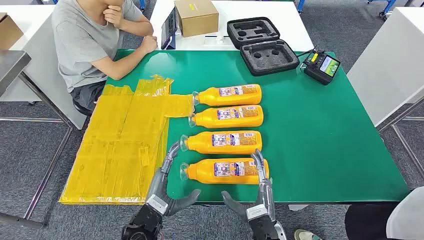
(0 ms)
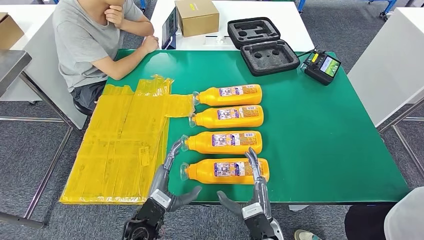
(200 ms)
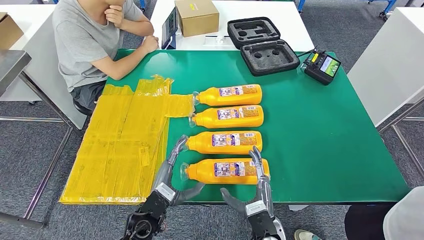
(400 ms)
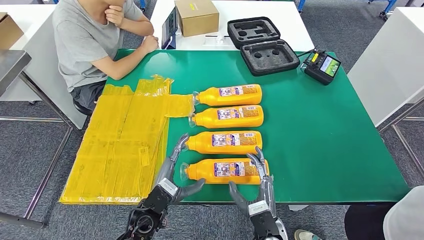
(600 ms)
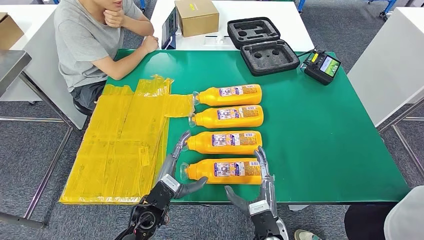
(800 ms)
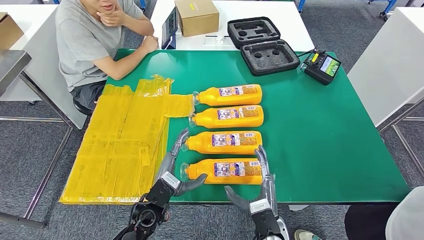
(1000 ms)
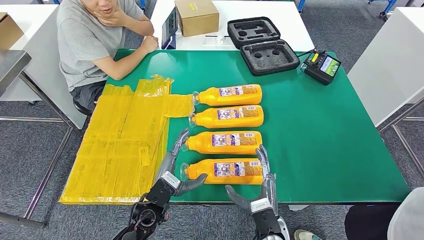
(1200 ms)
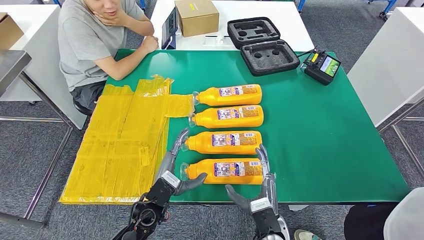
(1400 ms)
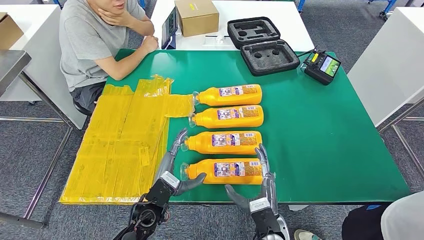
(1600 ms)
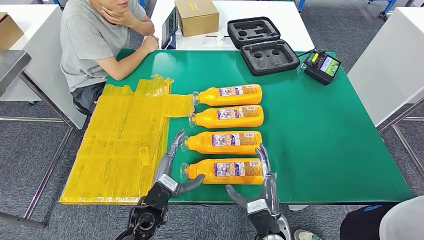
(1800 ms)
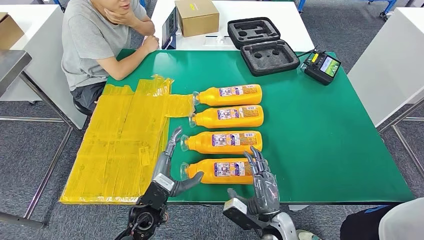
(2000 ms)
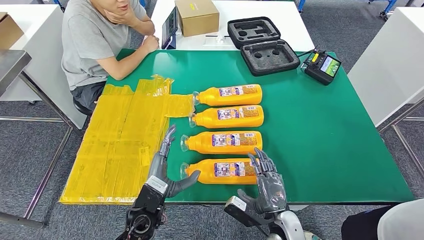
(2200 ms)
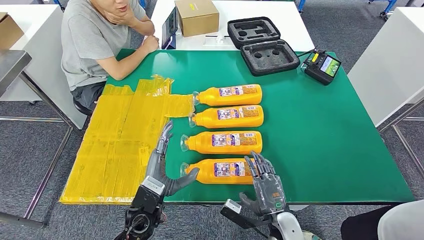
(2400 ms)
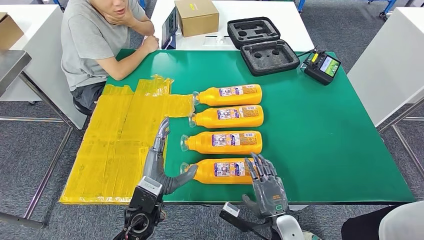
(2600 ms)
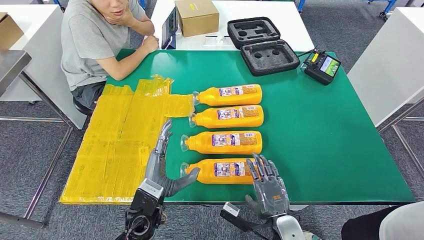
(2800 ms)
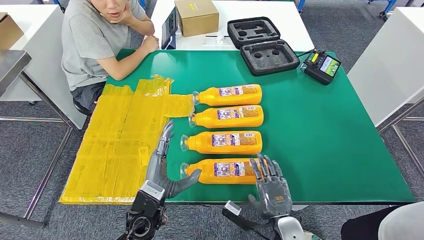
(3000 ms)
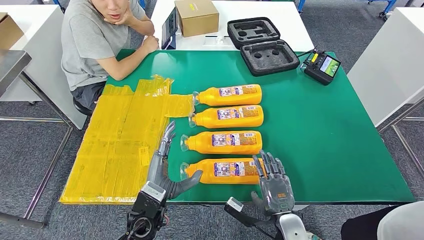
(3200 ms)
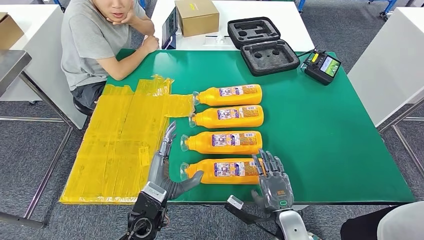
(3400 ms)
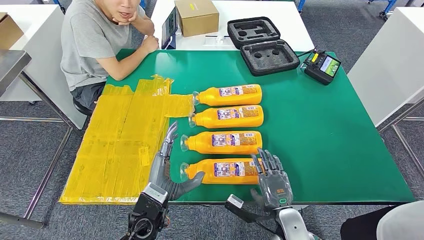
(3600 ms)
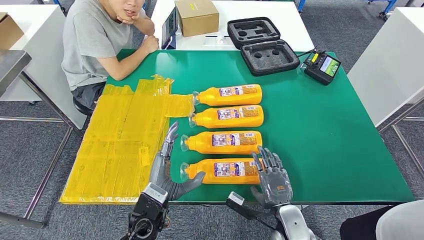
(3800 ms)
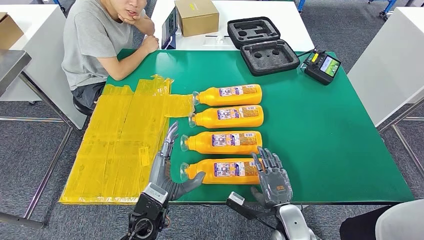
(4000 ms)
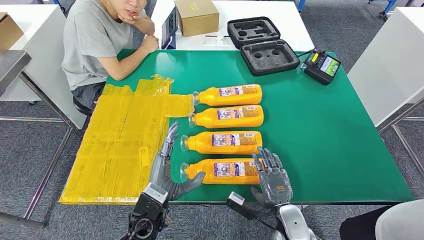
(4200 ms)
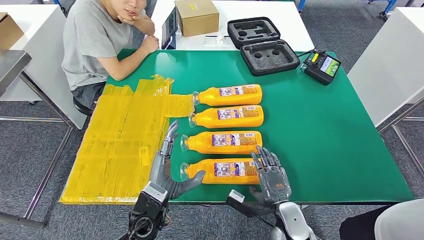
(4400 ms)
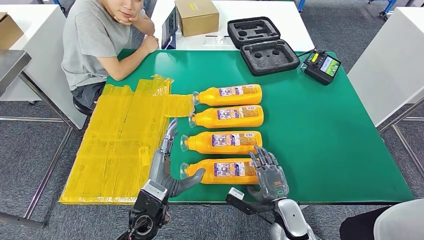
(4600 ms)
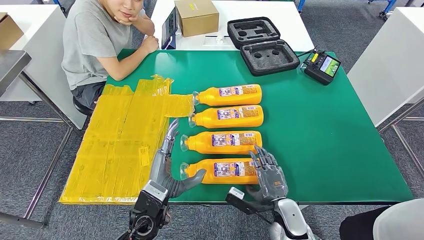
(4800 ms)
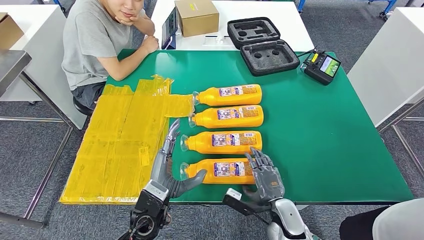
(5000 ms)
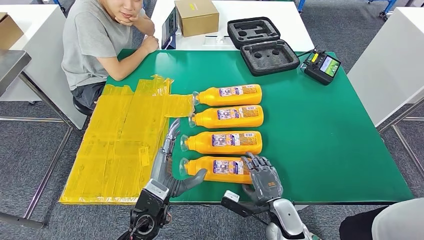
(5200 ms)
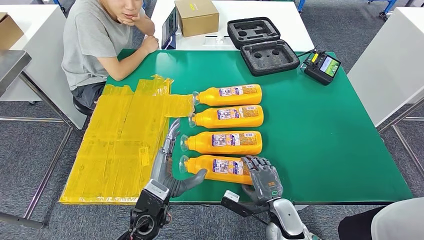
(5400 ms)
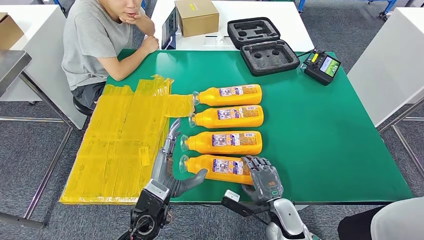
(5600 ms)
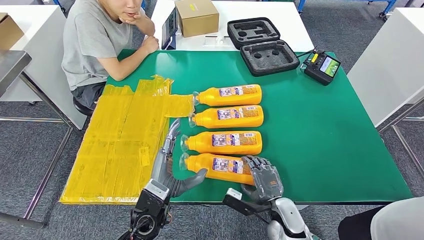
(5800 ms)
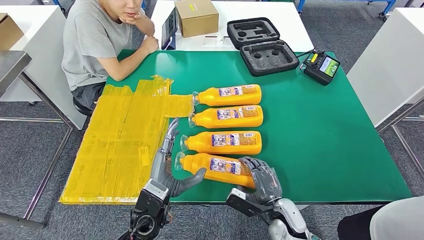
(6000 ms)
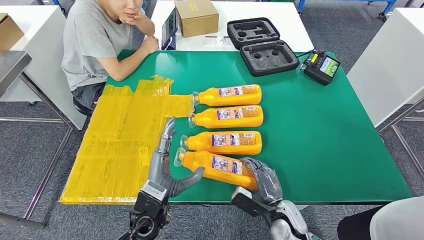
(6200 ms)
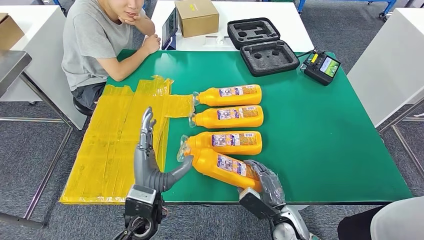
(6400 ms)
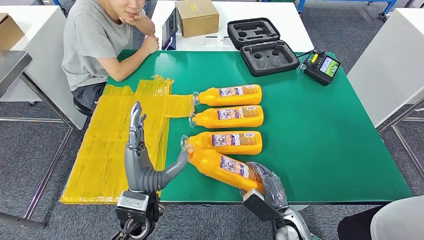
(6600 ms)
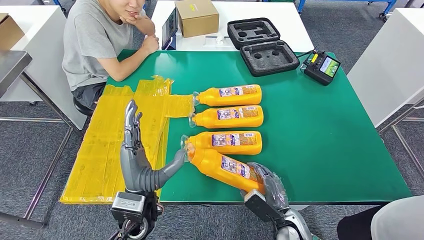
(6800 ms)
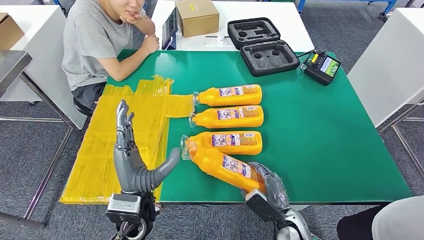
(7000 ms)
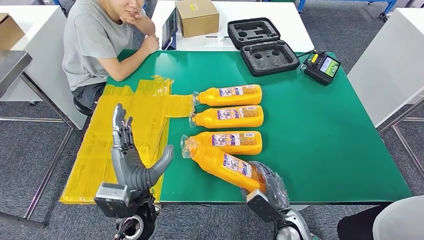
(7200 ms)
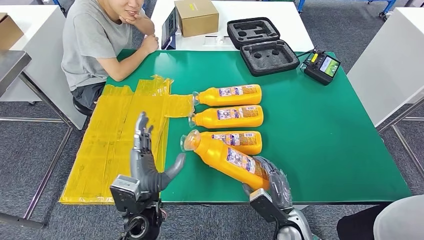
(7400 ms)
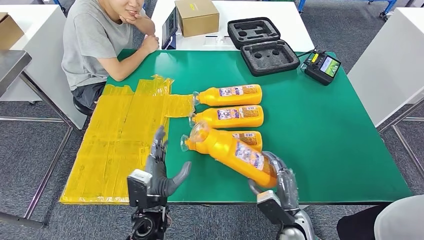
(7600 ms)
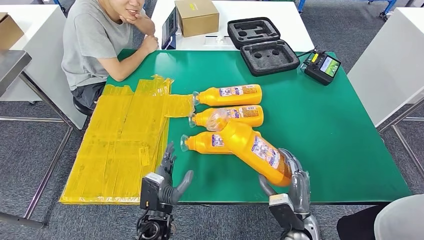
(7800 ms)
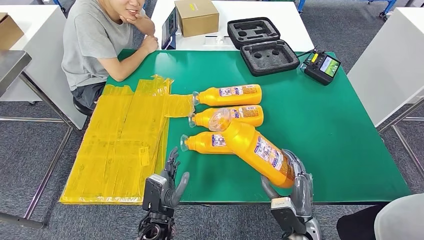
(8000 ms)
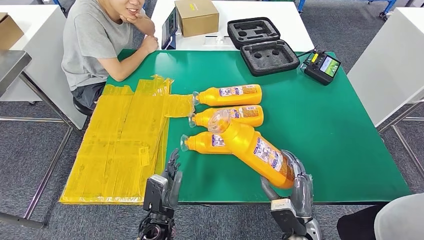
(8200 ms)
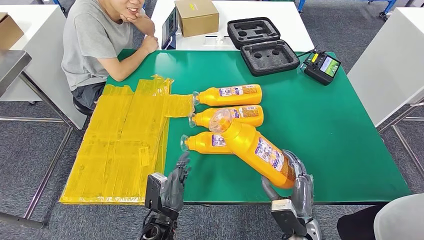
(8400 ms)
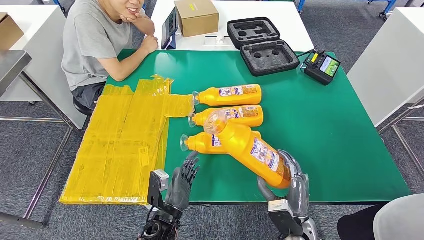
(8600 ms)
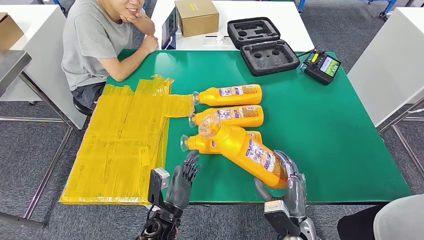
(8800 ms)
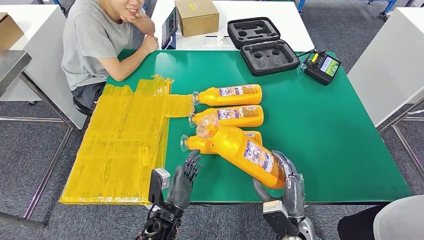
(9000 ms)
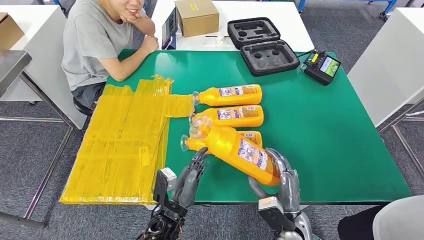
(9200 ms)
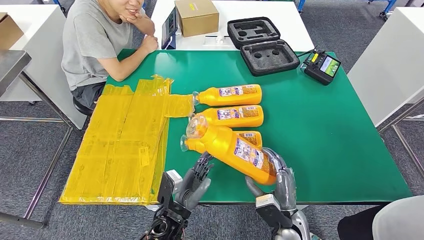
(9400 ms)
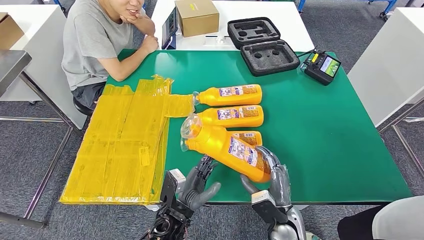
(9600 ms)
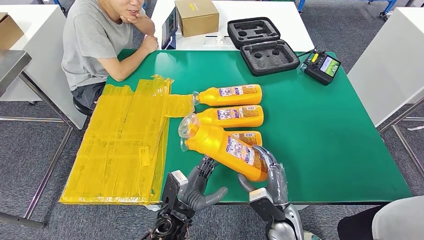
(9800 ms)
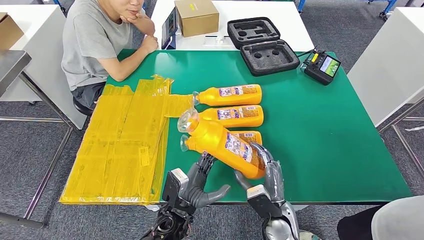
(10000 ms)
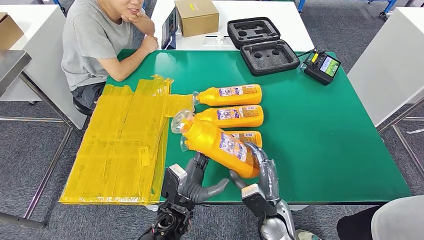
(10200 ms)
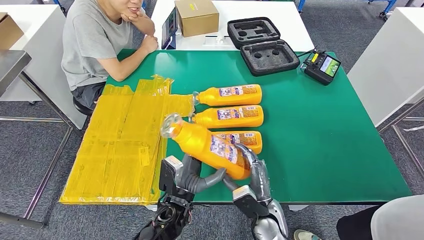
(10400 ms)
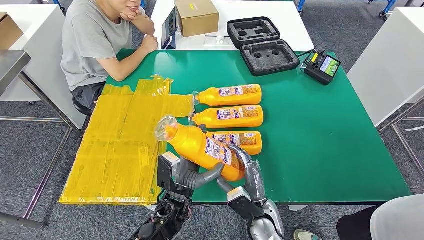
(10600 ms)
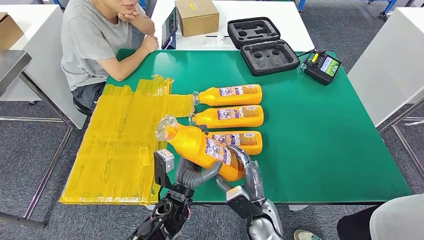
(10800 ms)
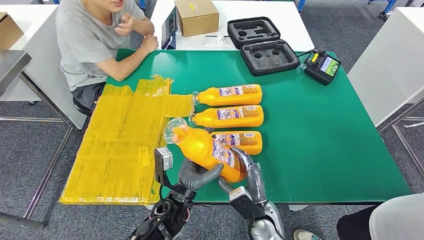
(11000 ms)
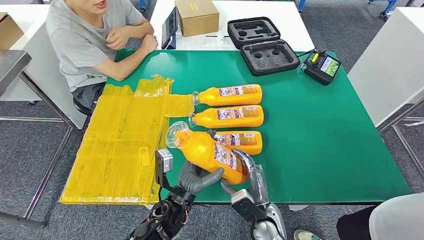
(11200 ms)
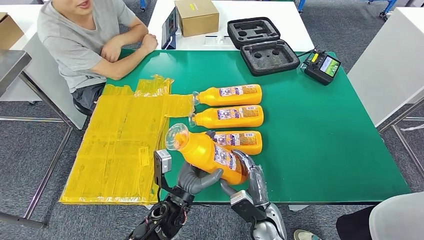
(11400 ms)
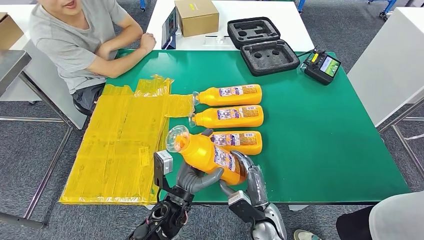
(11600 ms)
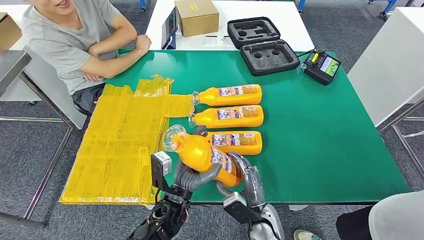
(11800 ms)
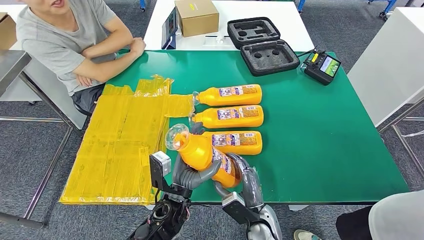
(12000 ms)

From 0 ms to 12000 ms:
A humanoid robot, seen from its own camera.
Step, from 0 ms to 10600 ms: Take the fast-moving consumer goods bottle from the table.
From 3000 ms to 4400 ms: The hands move only a little.
From 6000 ms to 7600 ms: The left hand moves about 5 cm upward and comes back.
From 7600 ms to 9000 ms: The left hand moves approximately 5 cm.
From 9000 ms to 10400 ms: The right hand heads to the left, covering about 5 cm; the left hand changes place by roughly 5 cm.
From 10400 ms to 12000 ms: The hands move only a little.

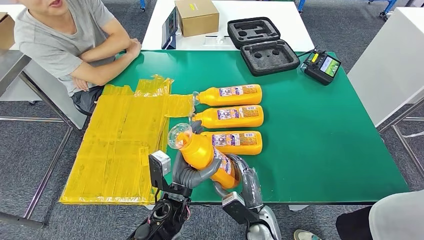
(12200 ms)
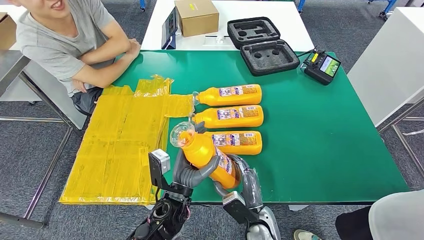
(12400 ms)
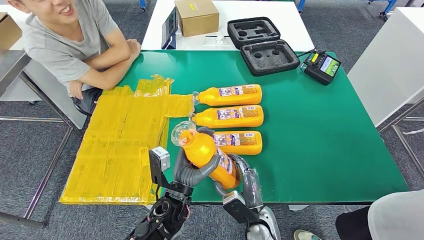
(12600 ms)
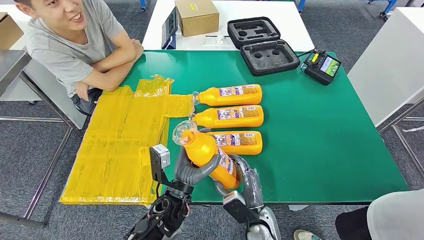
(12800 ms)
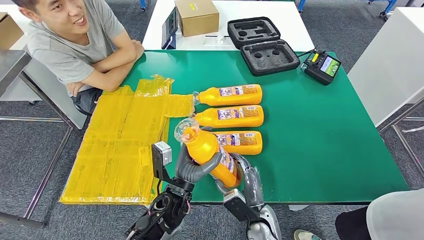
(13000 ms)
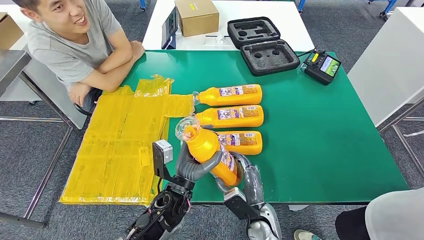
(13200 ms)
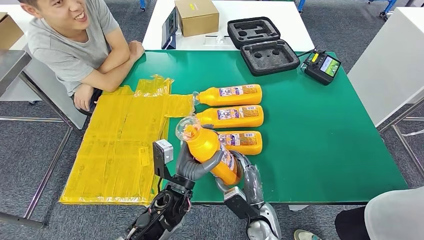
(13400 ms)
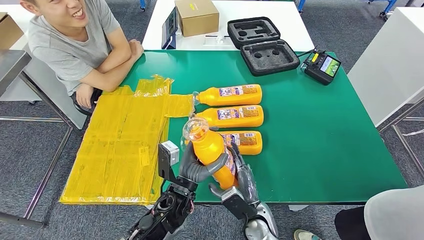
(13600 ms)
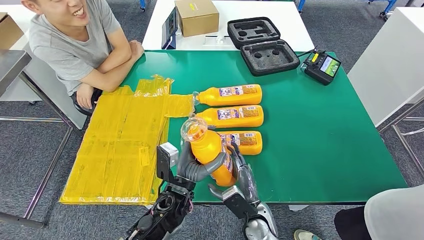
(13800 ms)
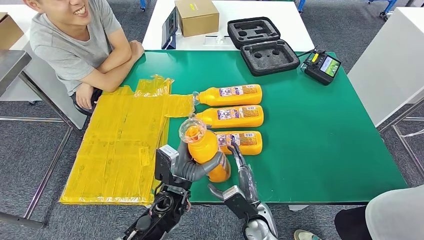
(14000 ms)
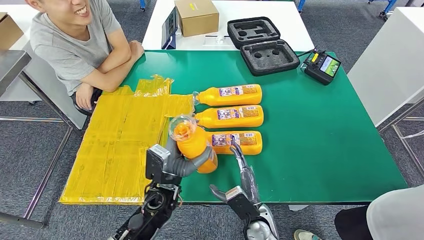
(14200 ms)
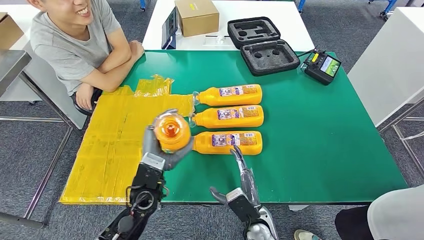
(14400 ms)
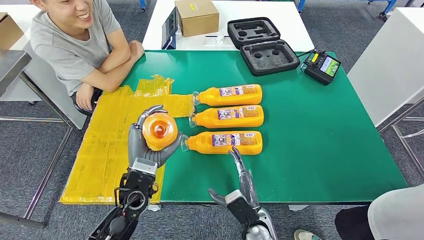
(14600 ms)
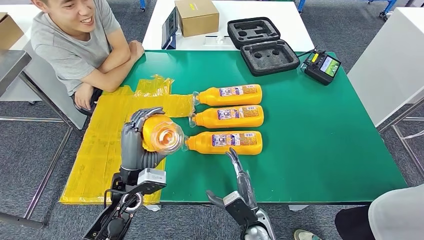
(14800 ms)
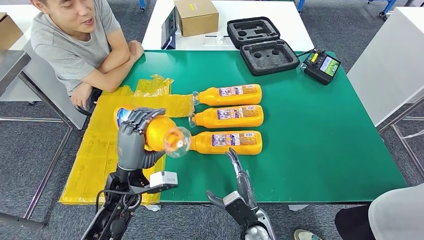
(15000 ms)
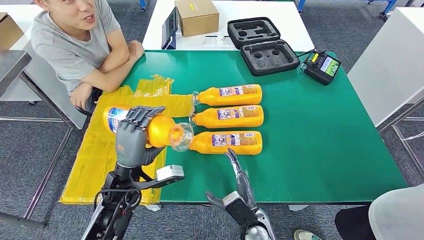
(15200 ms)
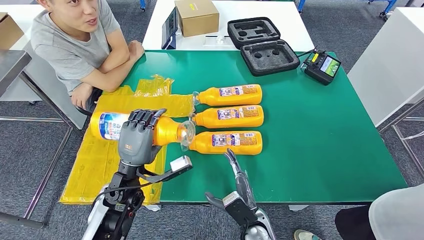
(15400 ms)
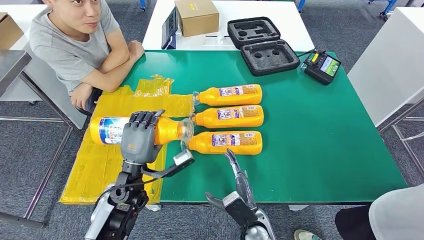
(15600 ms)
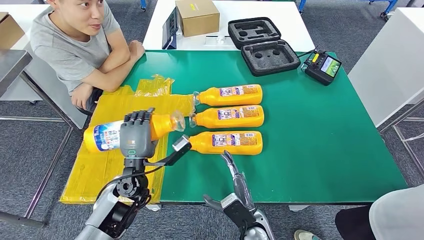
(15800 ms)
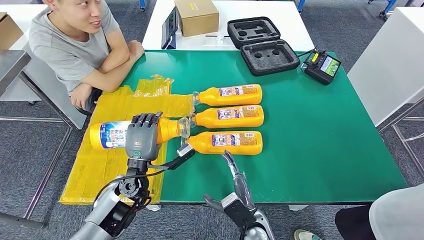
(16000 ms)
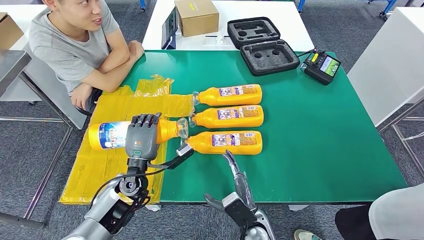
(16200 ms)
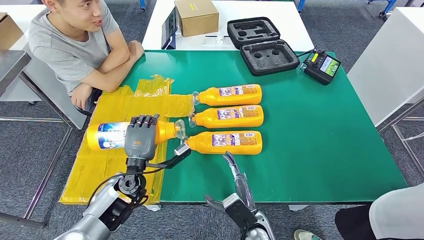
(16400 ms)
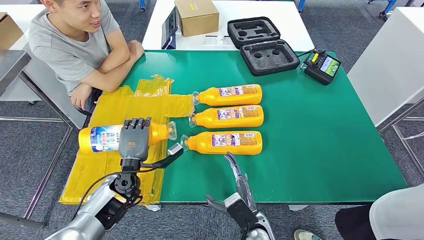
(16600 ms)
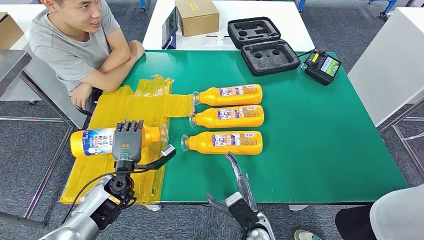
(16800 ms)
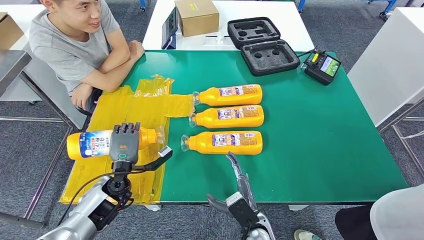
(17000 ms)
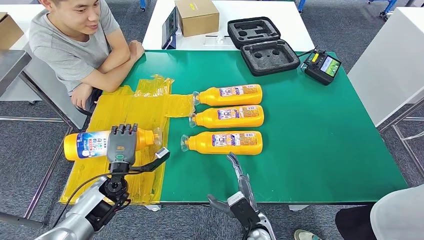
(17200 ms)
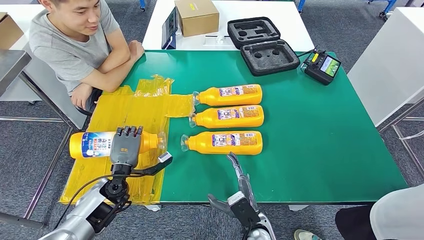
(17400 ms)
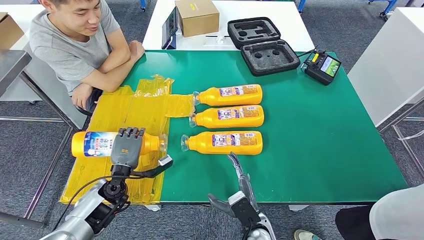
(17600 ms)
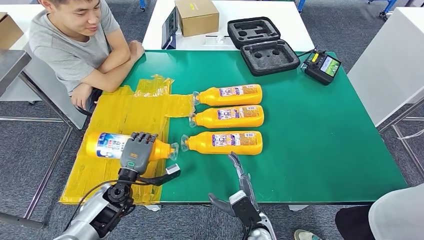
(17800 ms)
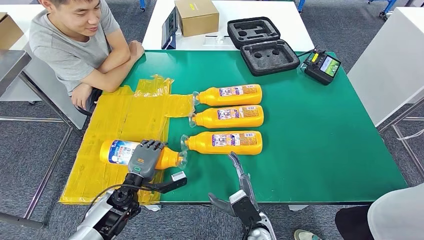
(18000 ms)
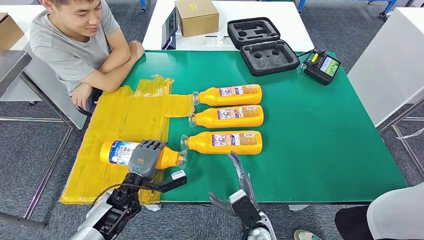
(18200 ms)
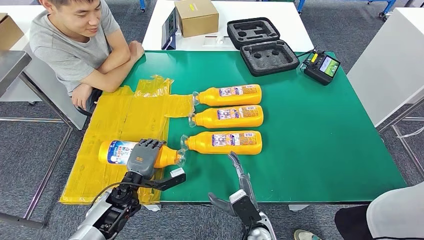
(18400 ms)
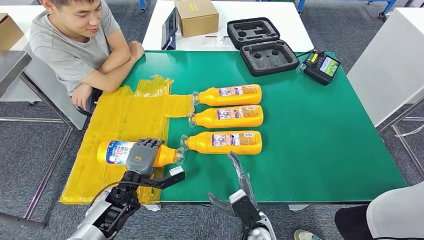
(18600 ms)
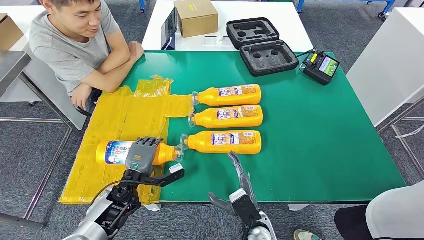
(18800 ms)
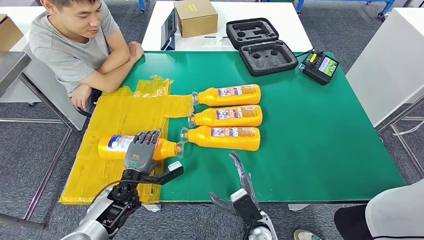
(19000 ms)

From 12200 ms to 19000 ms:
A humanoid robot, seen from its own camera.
Step, from 12200 ms to 16400 ms: Flip the fast-moving consumer goods bottle to the front side.
From 12200 ms to 13600 ms: The hands move only a little.
From 13600 ms to 15000 ms: The left hand travels to the left by some 15 cm.
From 15000 ms to 16200 ms: The left hand changes place by approximately 5 cm.
From 16200 ms to 17600 ms: The left hand heads to the left, covering some 5 cm.
